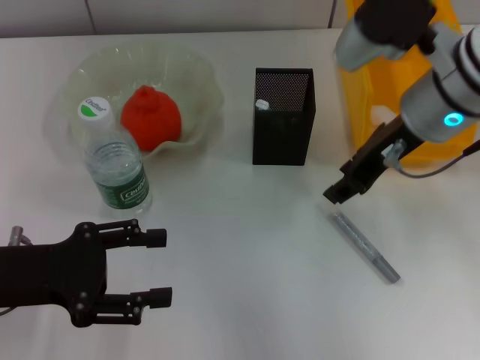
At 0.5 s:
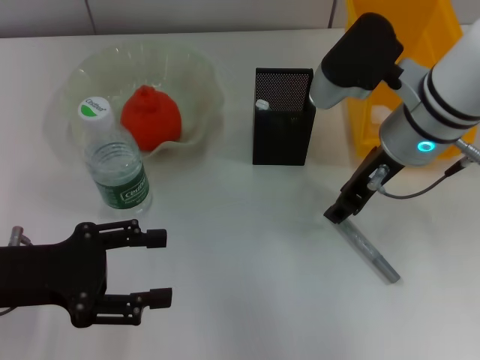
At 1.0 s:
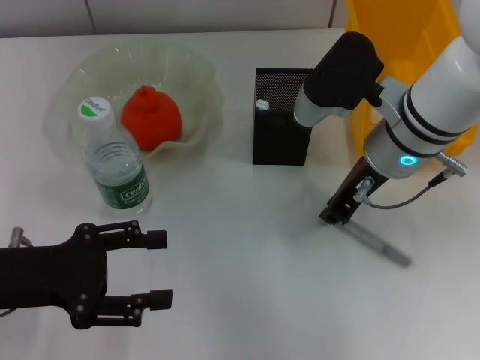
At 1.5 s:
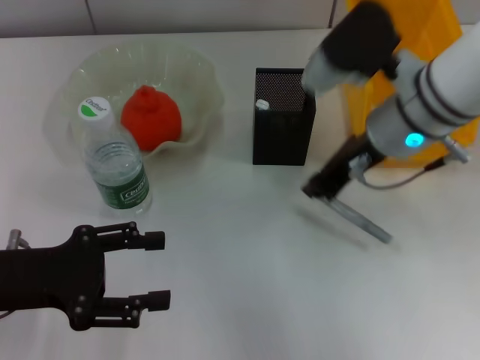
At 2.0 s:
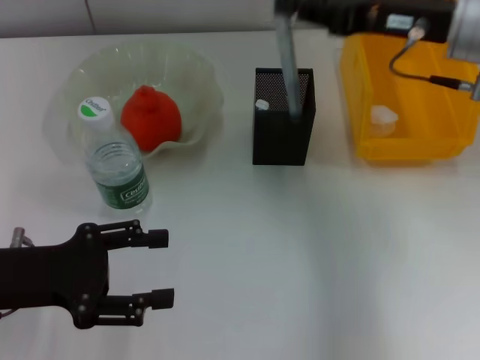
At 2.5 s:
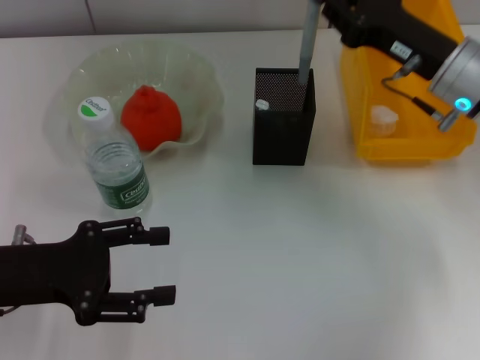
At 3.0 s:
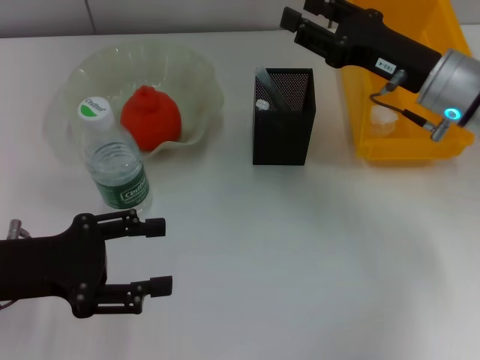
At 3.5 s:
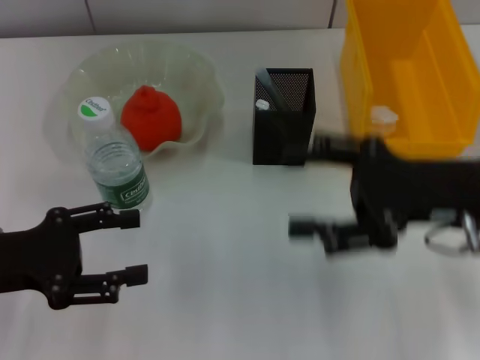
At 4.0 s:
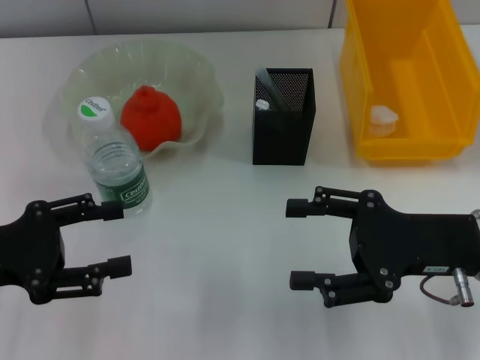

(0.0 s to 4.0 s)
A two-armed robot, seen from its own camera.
Step, 1.5 s - 3.0 s: Place the gray glue into the pen holder with the right hand.
0.0 s - 2.0 s: The right gripper goes some 5 cm to the right, and closes up.
2.0 s - 4.0 s: The right gripper moves backward and downward, about 15 cm, and opens up.

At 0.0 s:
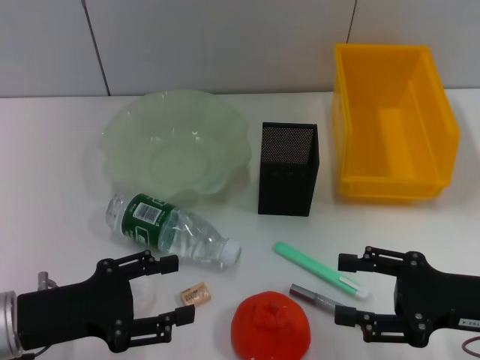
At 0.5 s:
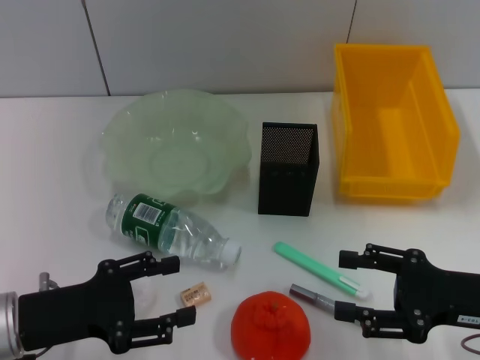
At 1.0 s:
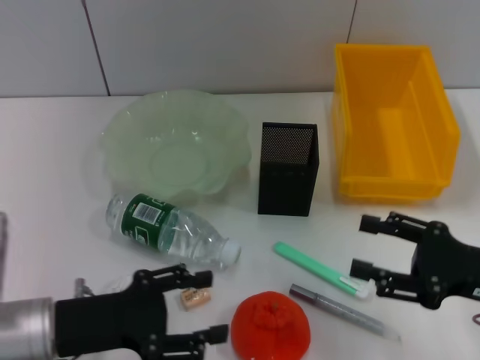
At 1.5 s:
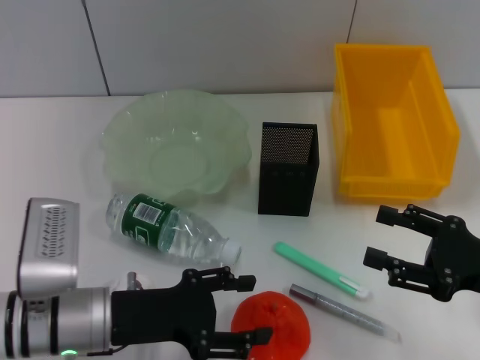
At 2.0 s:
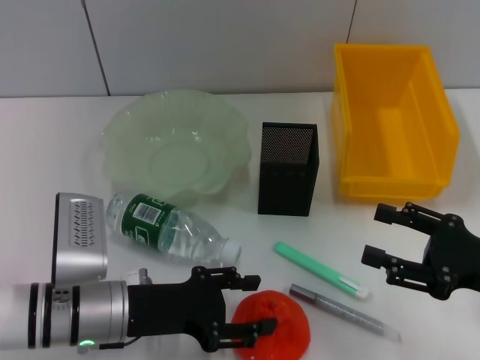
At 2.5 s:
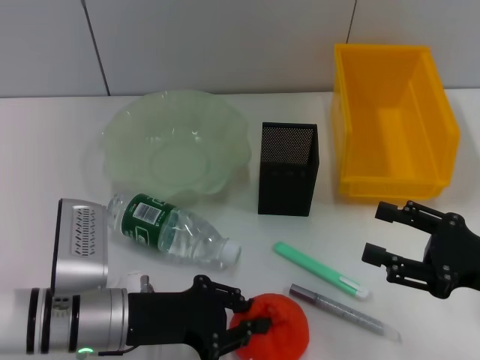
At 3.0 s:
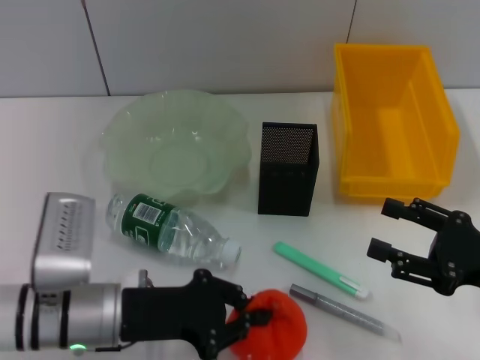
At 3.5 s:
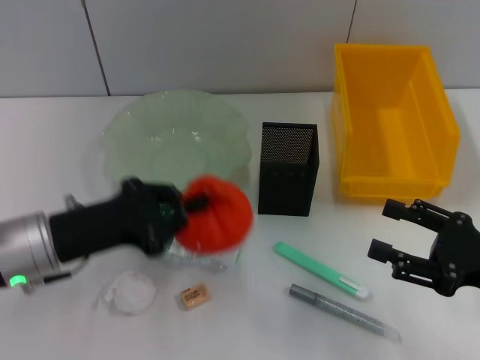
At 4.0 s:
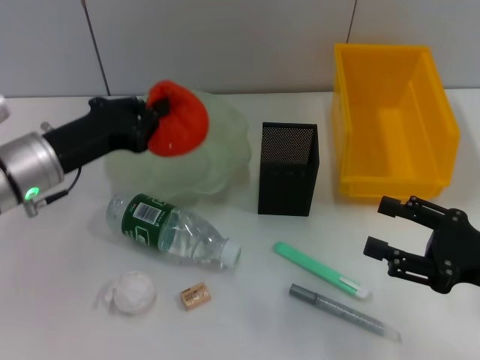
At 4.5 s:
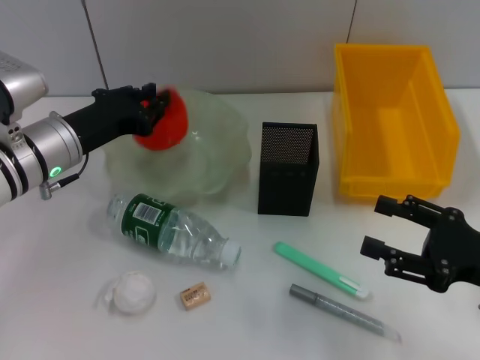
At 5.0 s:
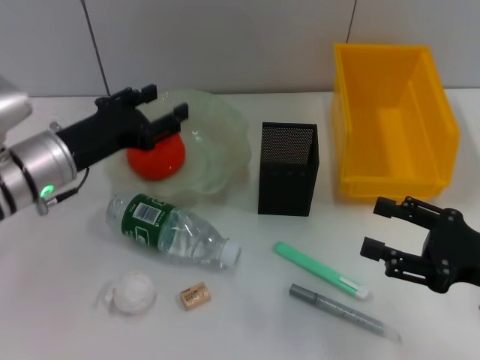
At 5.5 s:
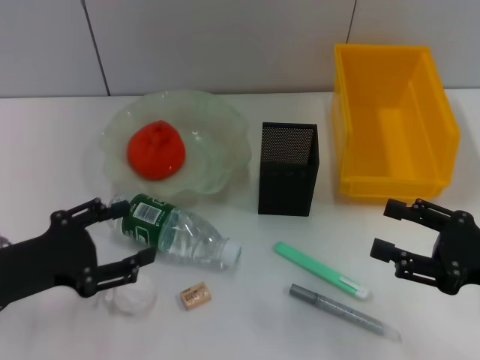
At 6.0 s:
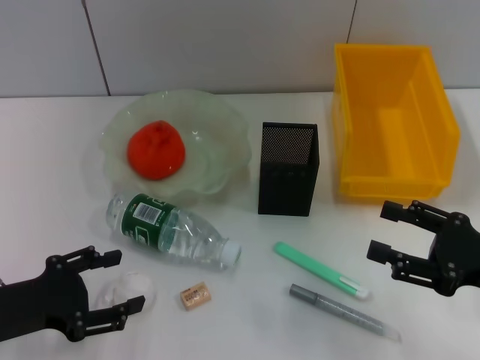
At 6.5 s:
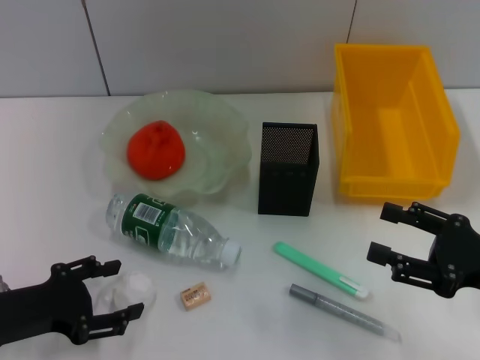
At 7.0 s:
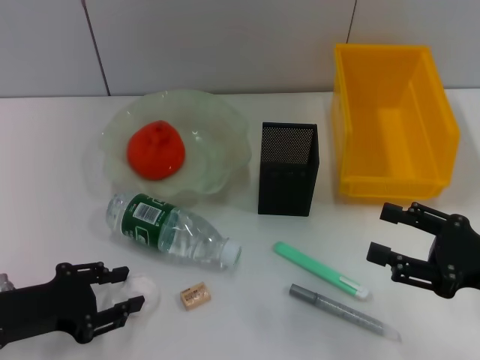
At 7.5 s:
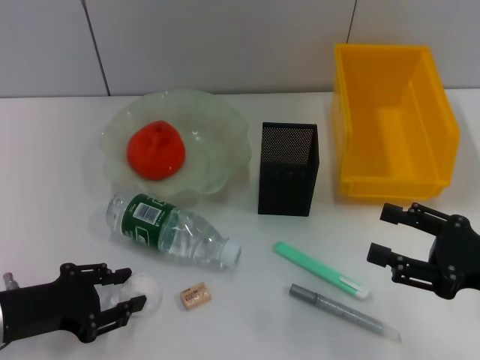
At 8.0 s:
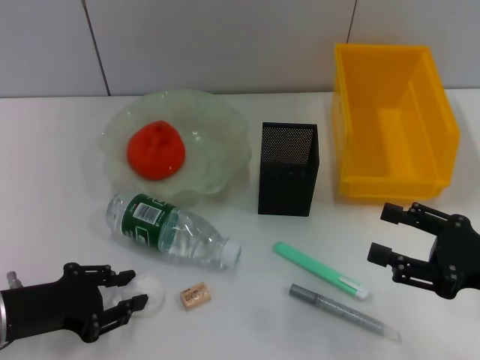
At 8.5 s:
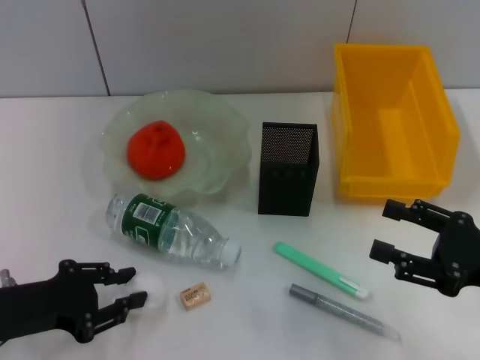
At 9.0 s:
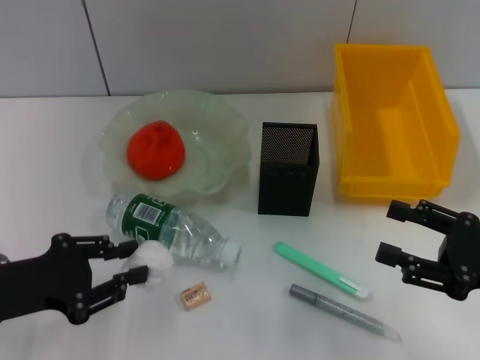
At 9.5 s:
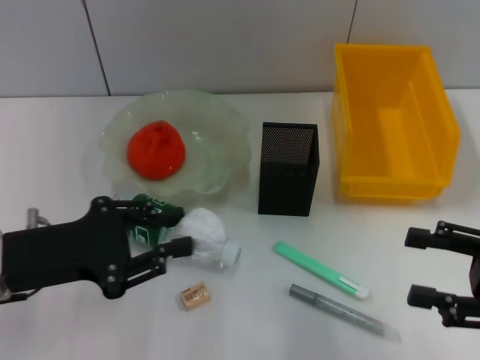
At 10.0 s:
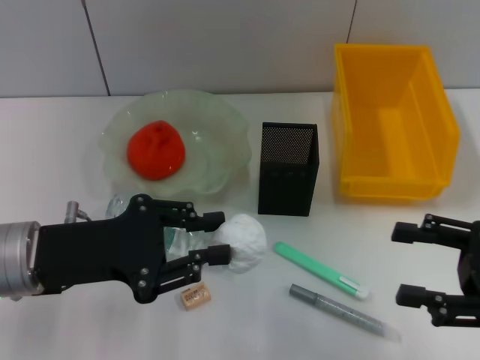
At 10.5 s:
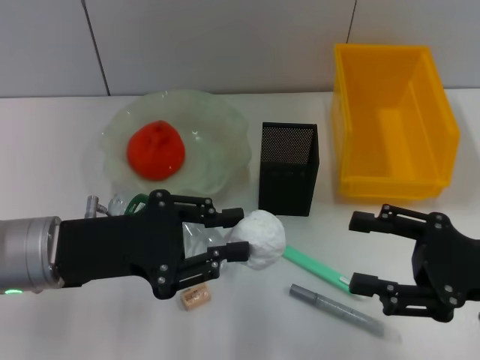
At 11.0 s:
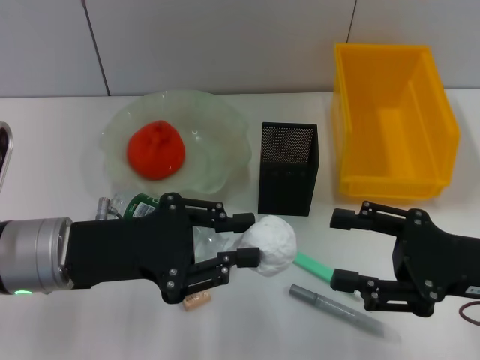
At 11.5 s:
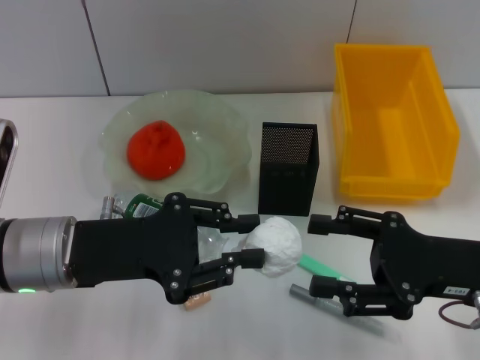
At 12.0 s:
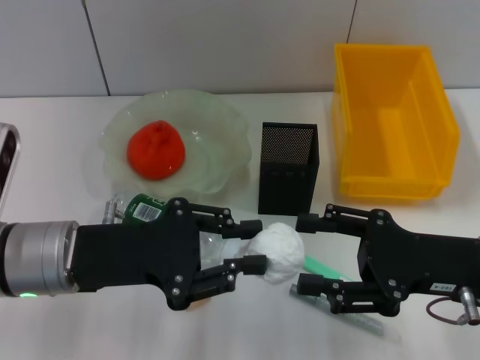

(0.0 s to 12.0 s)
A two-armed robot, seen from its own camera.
Step, 0.0 s - 2.5 s: Grab the orange with the left hand.
Step, 3.0 s - 4.5 s: Place the orange into the fruit bowl with the left hand.
Step, 5.0 s - 8.0 s: Grab the paper ball with the left hand.
0.0 s - 2.0 s: The left gripper moves to the right, roughly 10 cm.
2.0 s - 4.0 s: The left gripper shifts about 15 cm forward, upward and to the left, and closes up.
4.0 s - 6.0 s: The left gripper moves backward and to the left, about 15 cm, and opens.
6.0 s - 8.0 s: The left gripper closes its fingers.
8.0 s - 10.0 s: The left gripper moves upward and to the right, approximately 10 cm.
10.0 s - 12.0 s: The right gripper shifts some 5 cm to the left.

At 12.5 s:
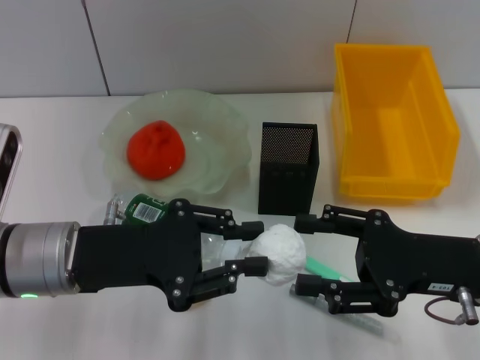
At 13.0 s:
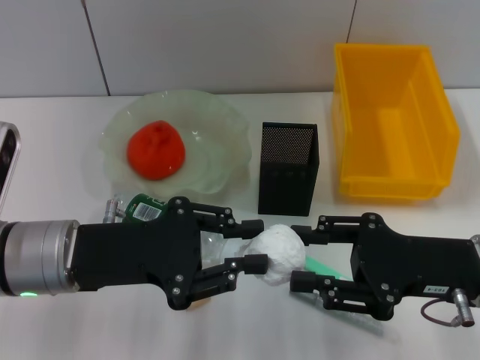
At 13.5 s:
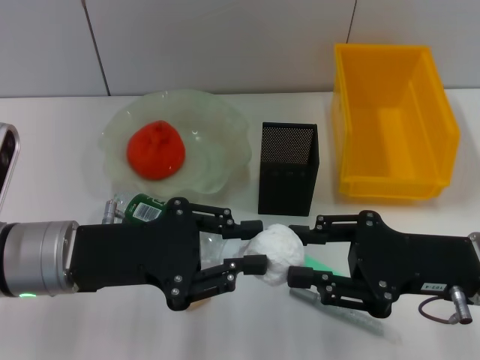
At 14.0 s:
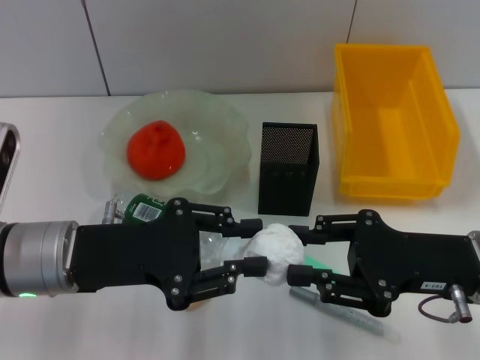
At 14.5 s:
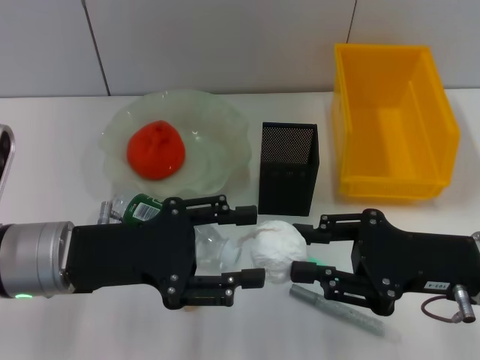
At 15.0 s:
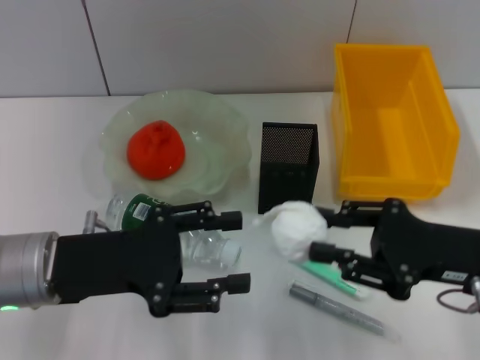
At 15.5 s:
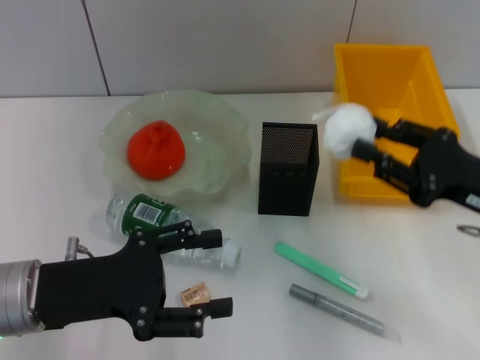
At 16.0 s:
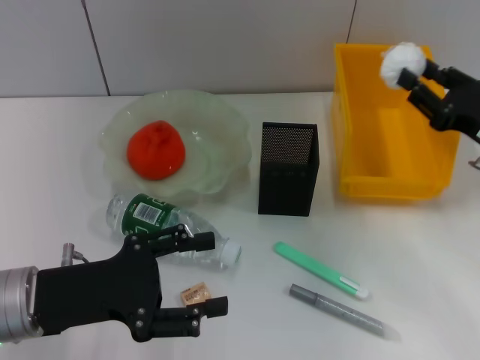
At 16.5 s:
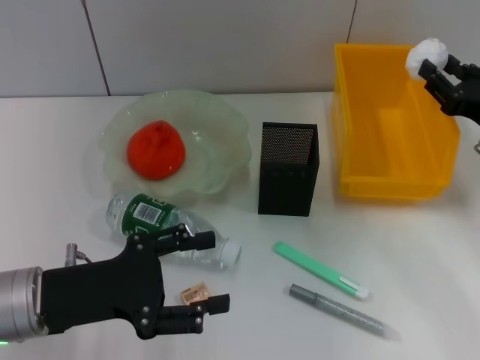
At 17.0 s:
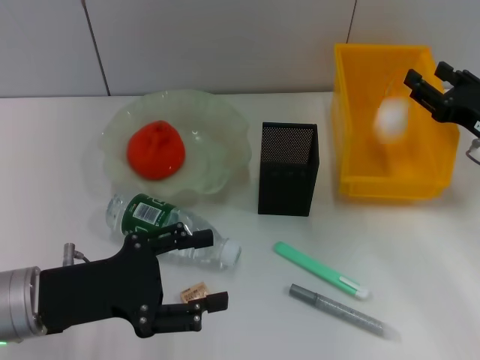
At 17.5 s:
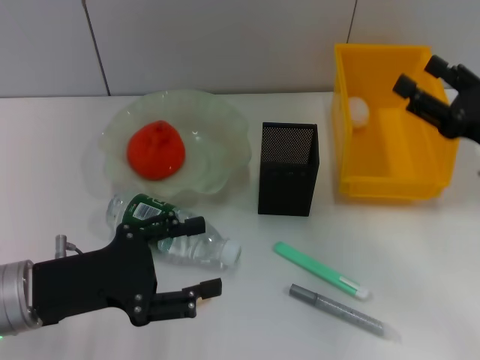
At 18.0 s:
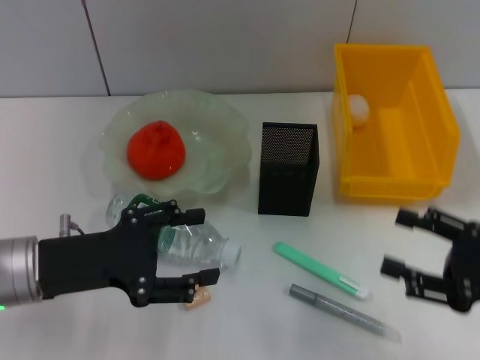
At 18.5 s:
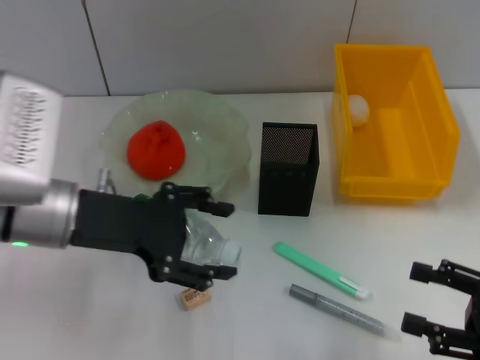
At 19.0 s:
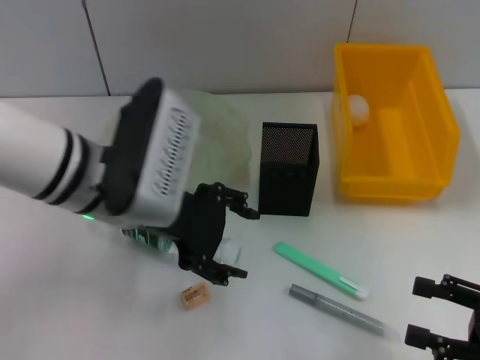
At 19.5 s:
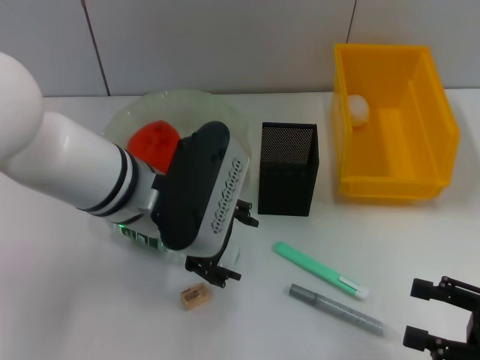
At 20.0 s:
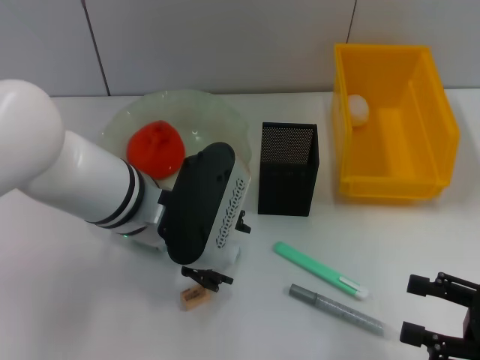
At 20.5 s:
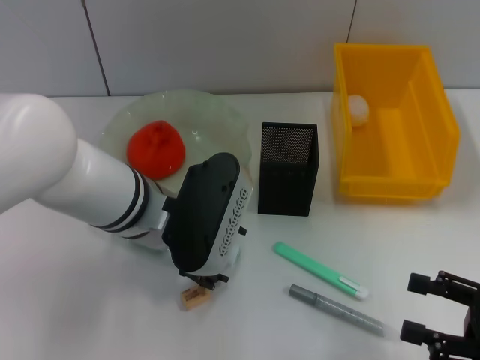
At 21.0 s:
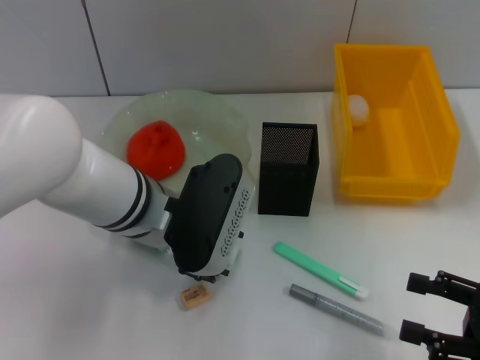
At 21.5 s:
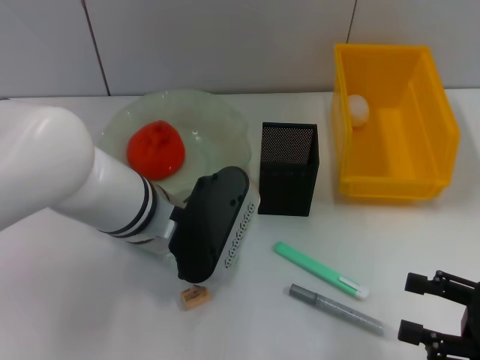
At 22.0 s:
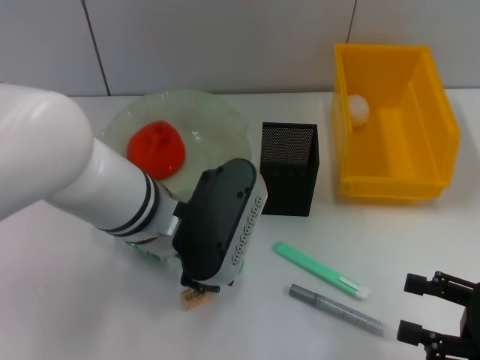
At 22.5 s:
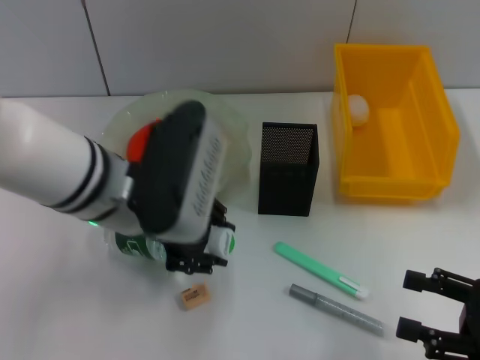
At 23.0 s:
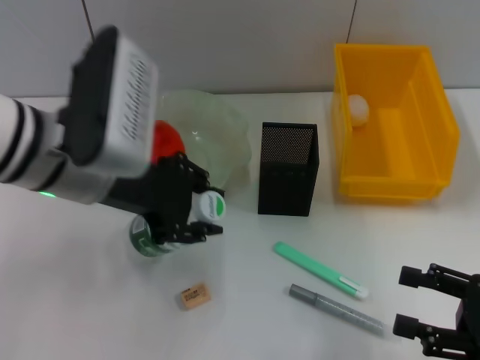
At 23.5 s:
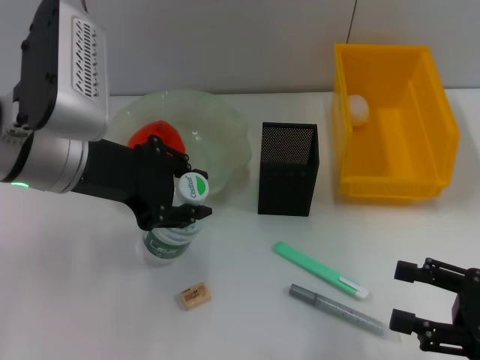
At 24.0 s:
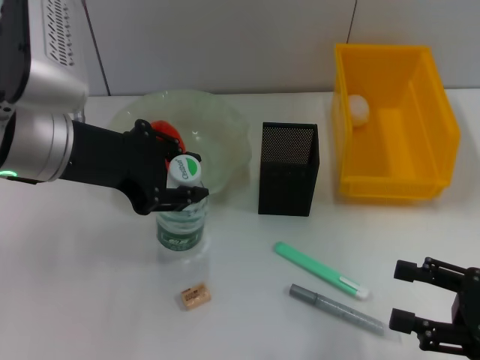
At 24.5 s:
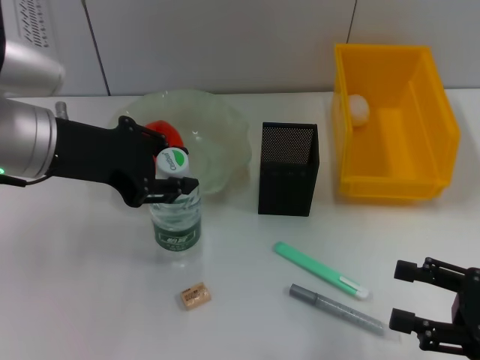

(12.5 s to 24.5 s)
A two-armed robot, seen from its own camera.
Step, 14.5 s - 17.5 s: Place the paper ball into the trash can with the right hand.
Step, 18.0 s - 21.5 s: Grab the water bottle with the left hand.
12.5 s - 14.5 s: The right gripper closes; the left gripper opens.
14.5 s - 16.5 s: The left gripper changes place by approximately 5 cm; the right gripper heads forward and to the right, covering some 10 cm.
16.5 s - 18.5 s: The left gripper moves upward and forward, some 10 cm. Meanwhile the right gripper is displaced backward by roughly 15 cm, and opens its fingers.
18.5 s - 20.5 s: The left gripper is displaced to the right by roughly 10 cm.
20.5 s - 22.5 s: The left gripper moves upward, some 5 cm, and closes its fingers.
22.5 s - 24.5 s: The left gripper is displaced to the left by approximately 10 cm.
